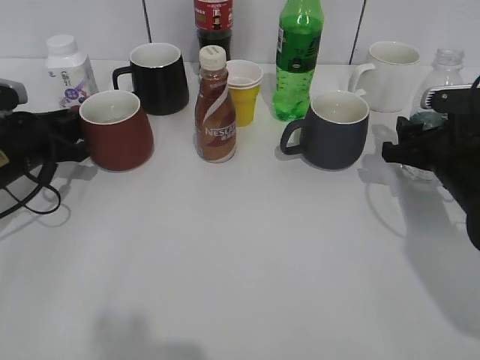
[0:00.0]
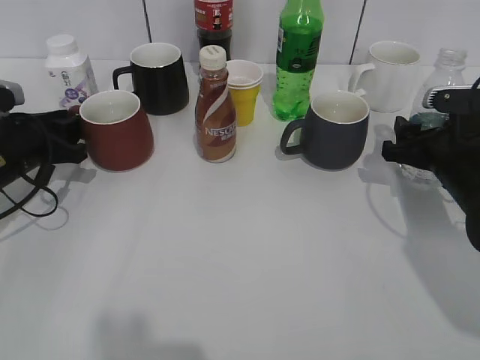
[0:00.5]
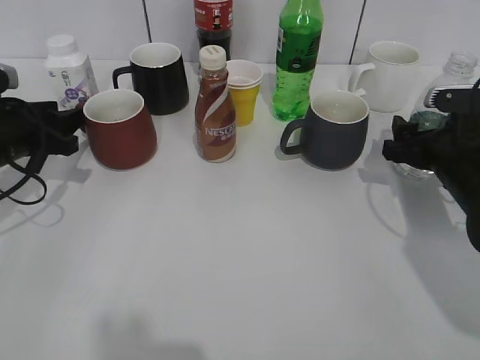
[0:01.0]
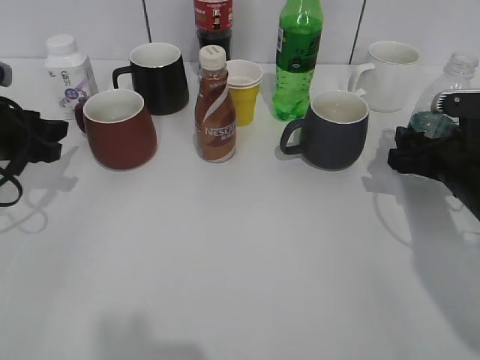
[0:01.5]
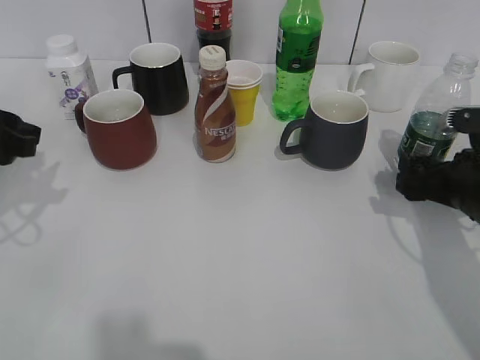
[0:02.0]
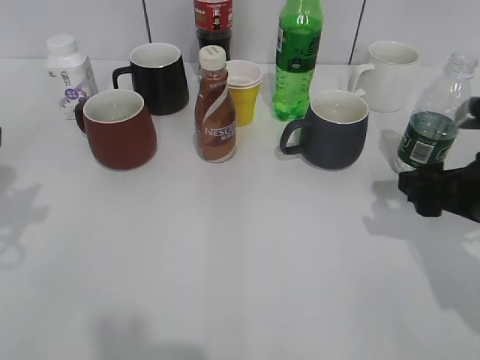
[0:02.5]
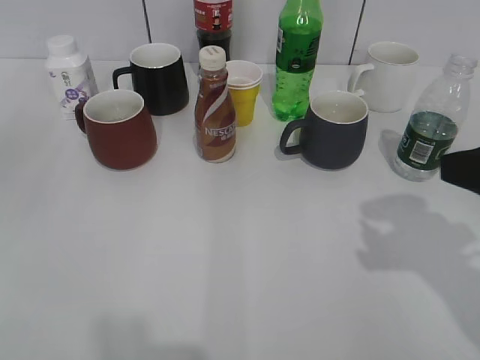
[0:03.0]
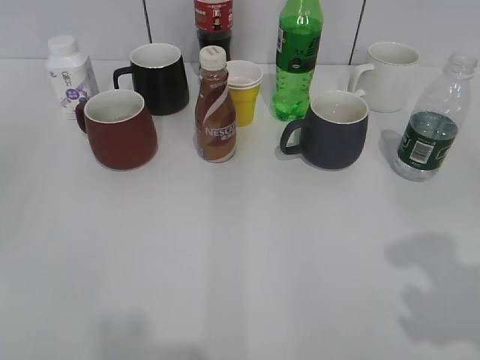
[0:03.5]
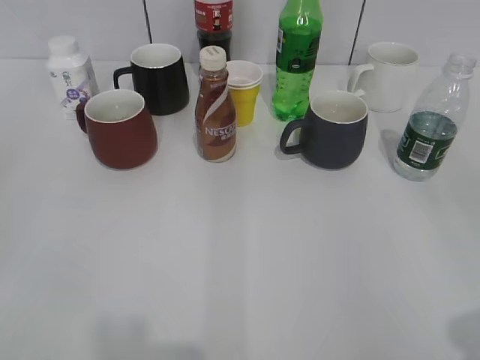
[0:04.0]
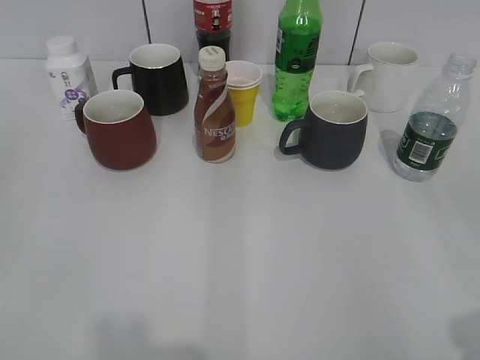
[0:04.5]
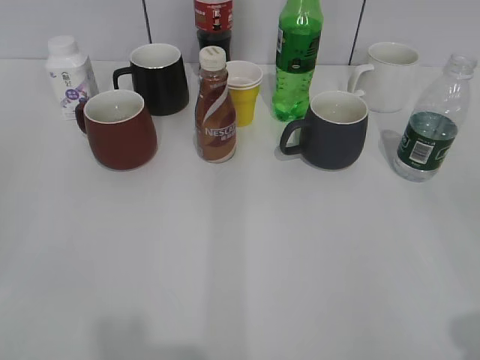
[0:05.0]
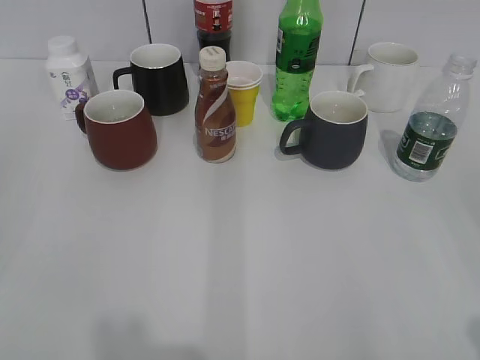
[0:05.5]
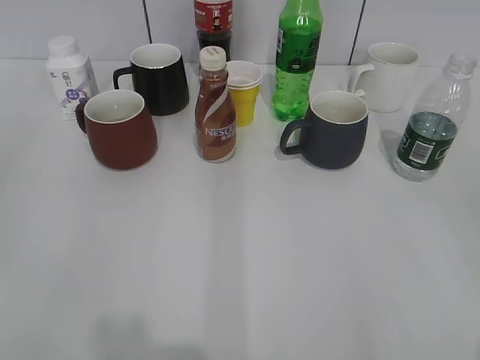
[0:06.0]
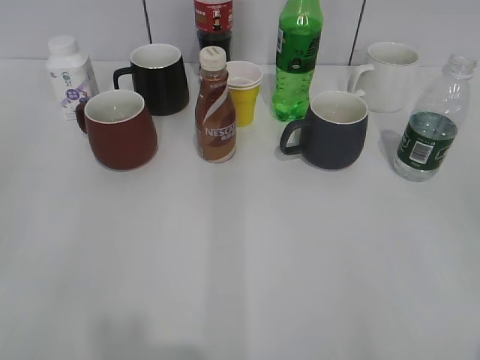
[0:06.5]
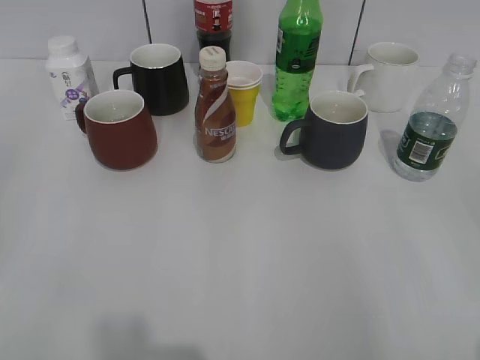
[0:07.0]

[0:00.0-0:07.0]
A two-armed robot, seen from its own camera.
0:00.0 to 0:02.0: The left gripper moves upward and backward, approximately 10 cm, and opens its fingers. The right gripper opens up.
0:02.0 to 0:03.5: The left gripper goes approximately 25 cm backward and upward. Meanwhile the right gripper shifts about 25 cm upward and backward.
